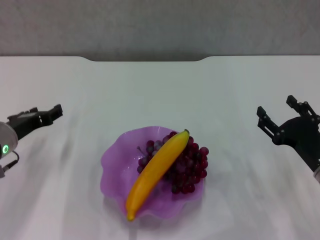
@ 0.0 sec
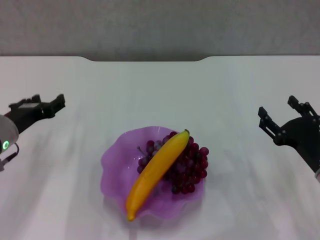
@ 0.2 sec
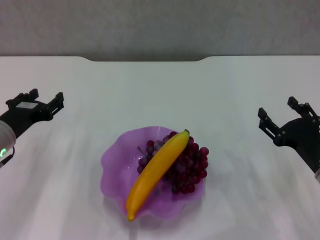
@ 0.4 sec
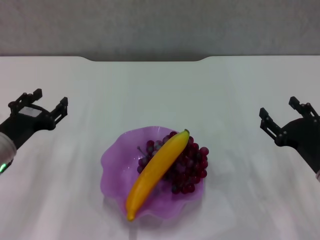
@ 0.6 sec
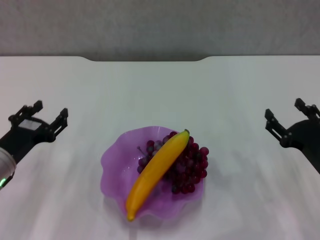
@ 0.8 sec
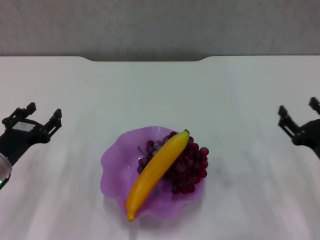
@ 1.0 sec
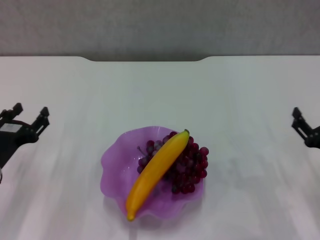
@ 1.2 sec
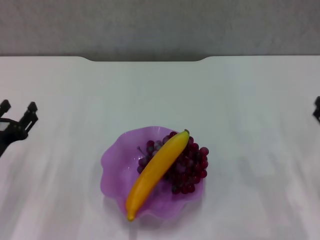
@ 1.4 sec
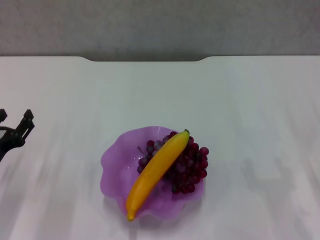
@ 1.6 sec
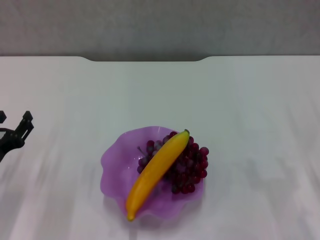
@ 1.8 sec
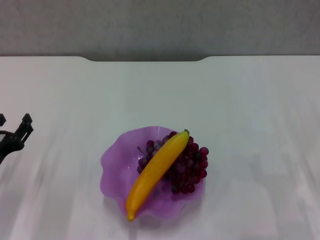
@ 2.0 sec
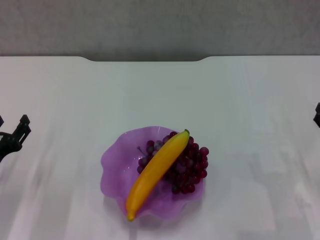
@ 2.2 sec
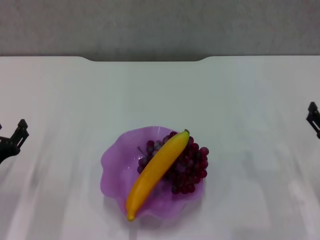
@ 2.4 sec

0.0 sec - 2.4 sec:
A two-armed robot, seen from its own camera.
0.0 sec - 1.2 sec: The left gripper moves backward, approximately 5 cm.
1.2 sec - 2.4 sec: The grippers move only a little.
